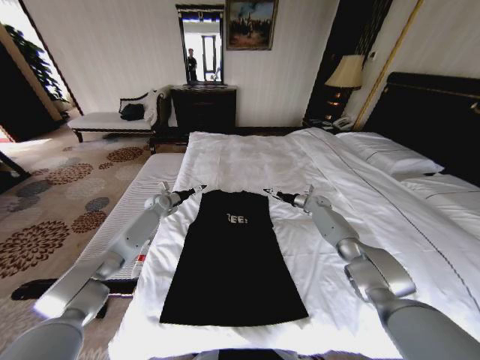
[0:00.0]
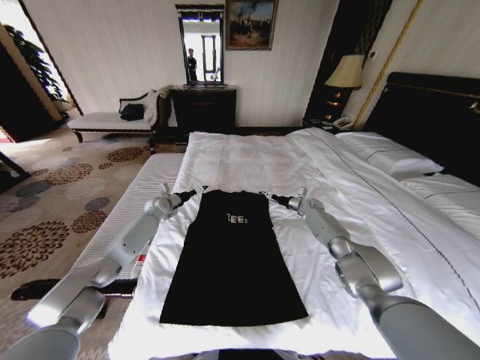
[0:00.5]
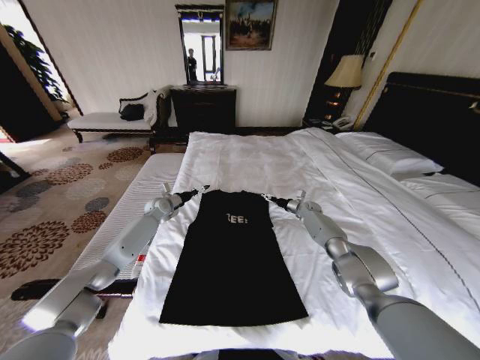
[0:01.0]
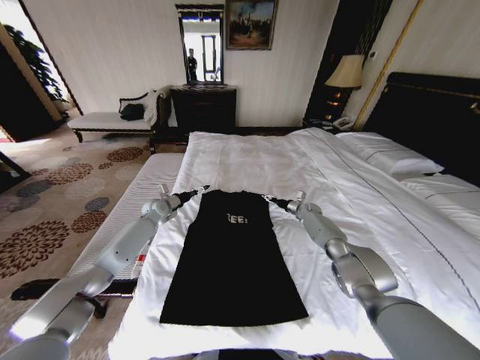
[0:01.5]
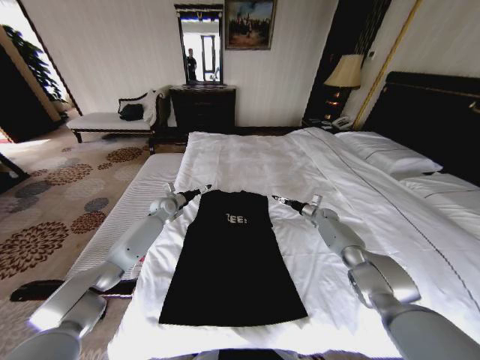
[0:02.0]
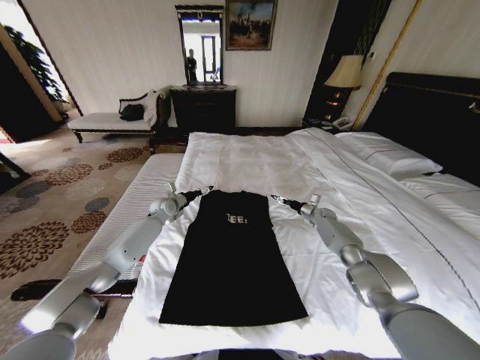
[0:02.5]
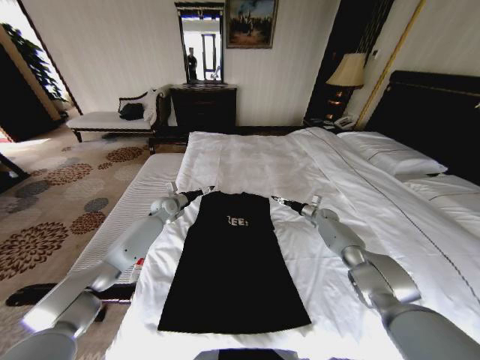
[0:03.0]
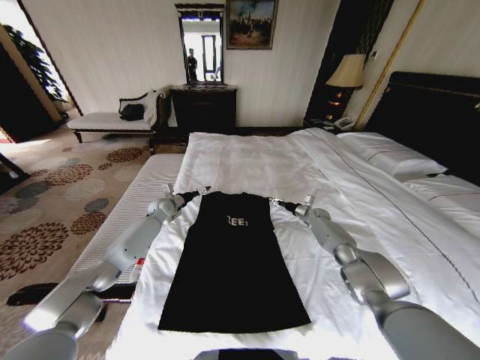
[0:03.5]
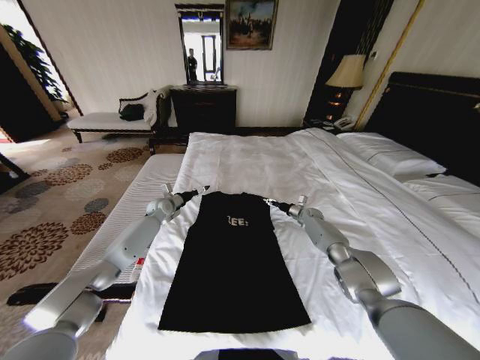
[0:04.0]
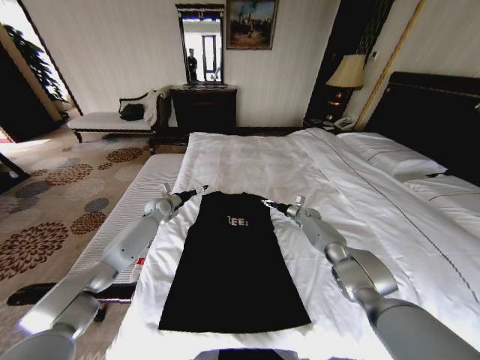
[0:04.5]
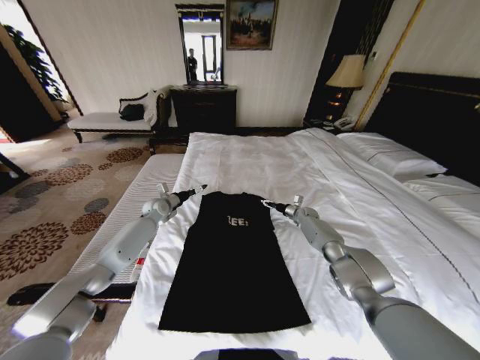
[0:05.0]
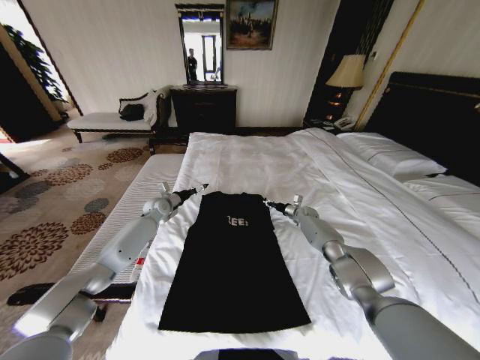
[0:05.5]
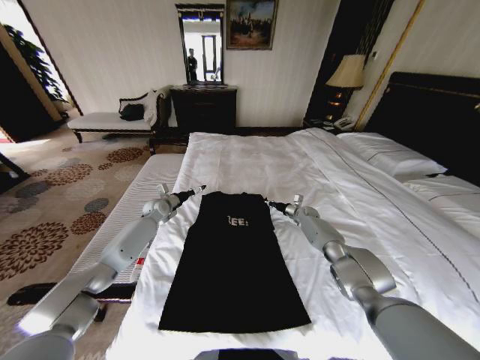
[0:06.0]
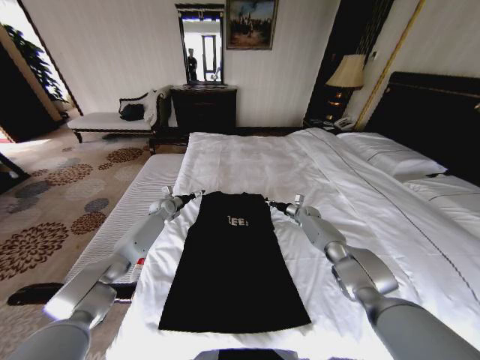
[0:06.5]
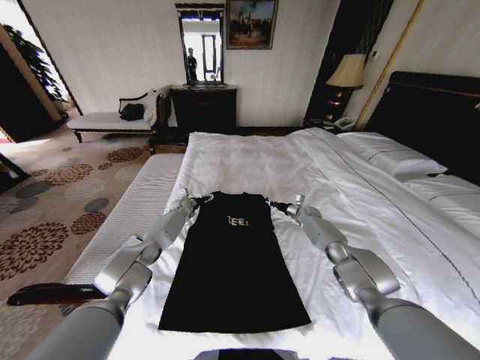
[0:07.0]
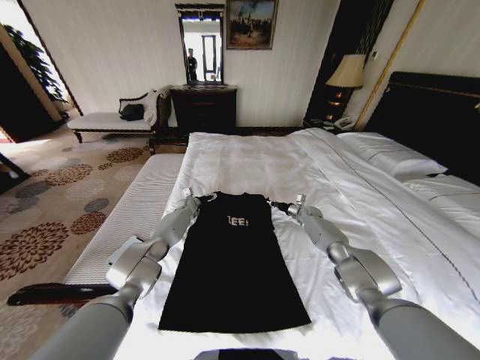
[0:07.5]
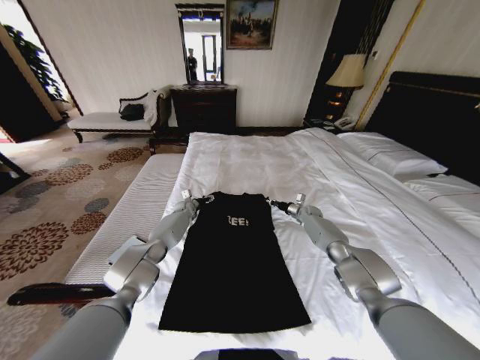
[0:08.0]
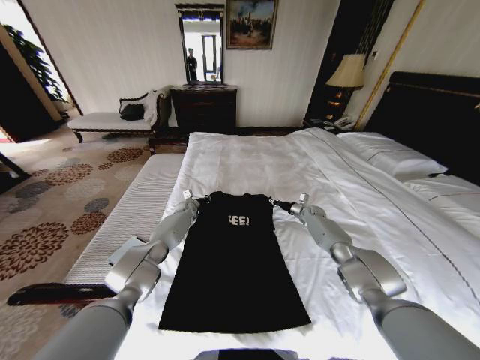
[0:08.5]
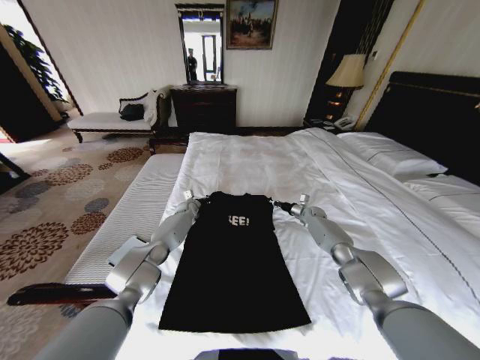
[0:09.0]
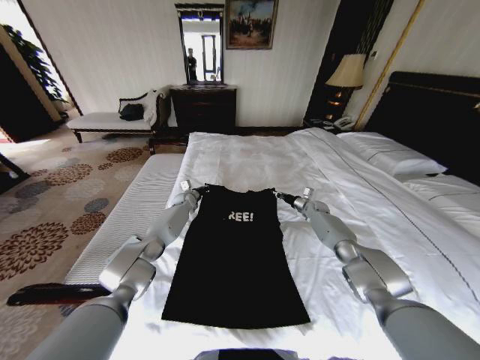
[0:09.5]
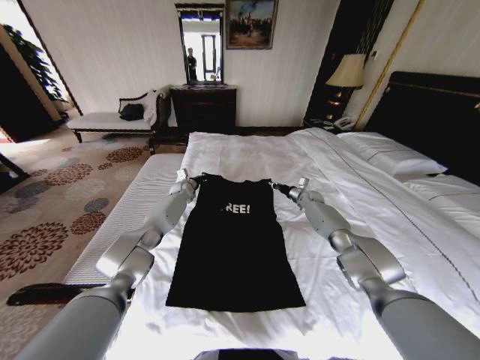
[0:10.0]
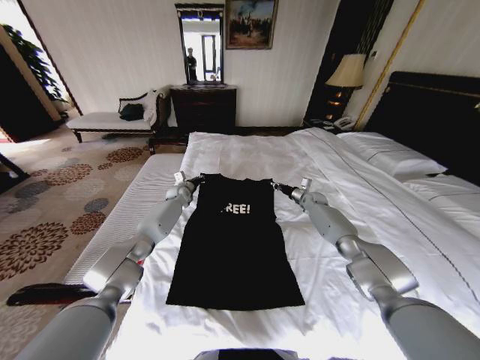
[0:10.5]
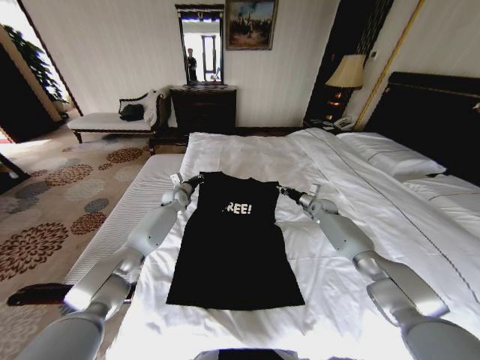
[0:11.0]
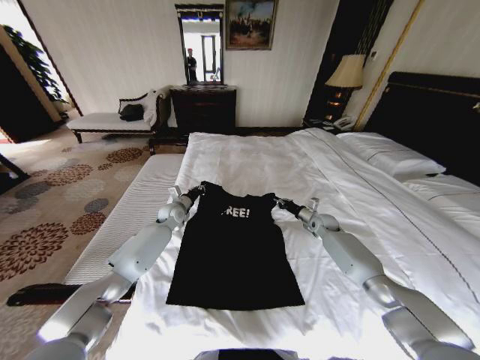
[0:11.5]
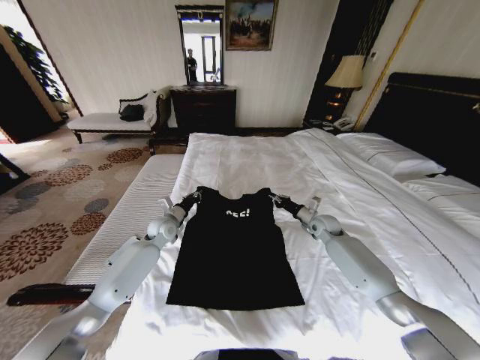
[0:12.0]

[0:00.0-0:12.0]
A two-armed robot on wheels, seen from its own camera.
Task of the whole recording: Fold the clothes on the bed.
0:00.0 to 0:02.0: The right gripper is displaced downward by about 5 cm.
0:02.0 to 0:04.0: The right gripper shifts approximately 5 cm to the left.
0:04.0 to 0:06.0: The right gripper closes its fingers.
0:06.0 to 0:08.0: The left gripper moves to the right, downward and forward, roughly 15 cm.
0:08.0 to 0:10.0: The grippers both shift upward by about 5 cm. The left gripper closes.
0:10.0 to 0:12.0: The two grippers go some 15 cm backward.

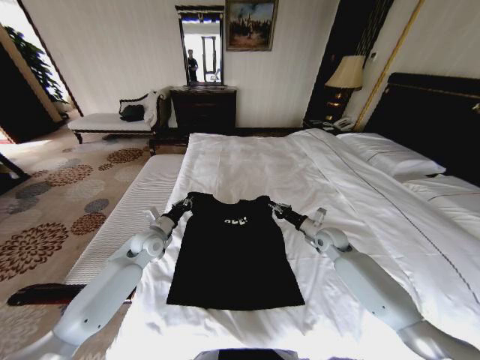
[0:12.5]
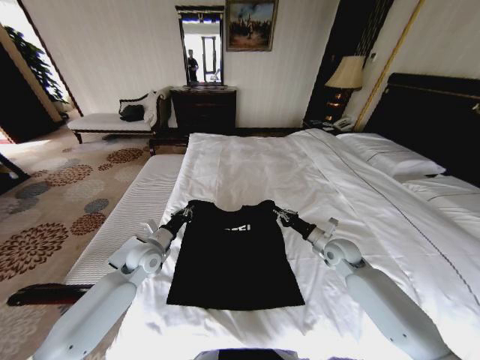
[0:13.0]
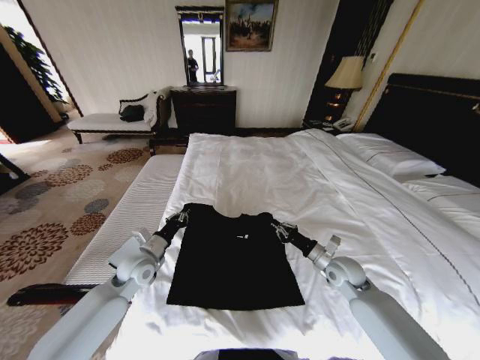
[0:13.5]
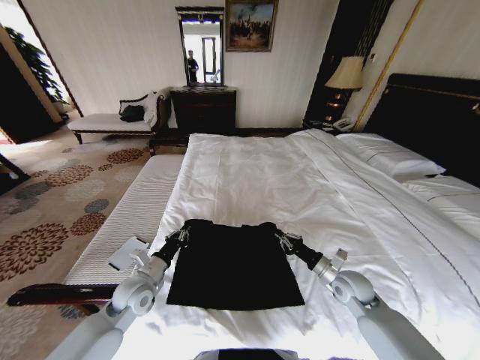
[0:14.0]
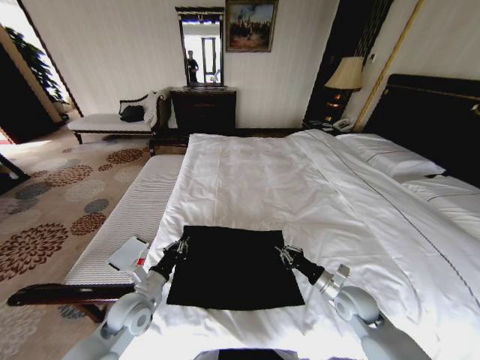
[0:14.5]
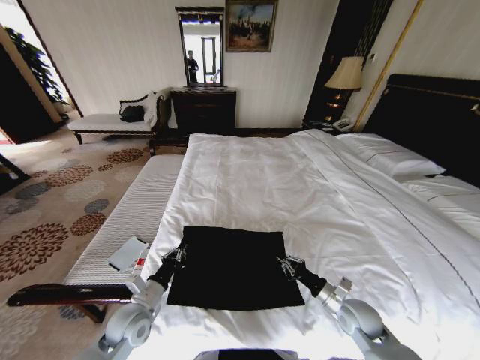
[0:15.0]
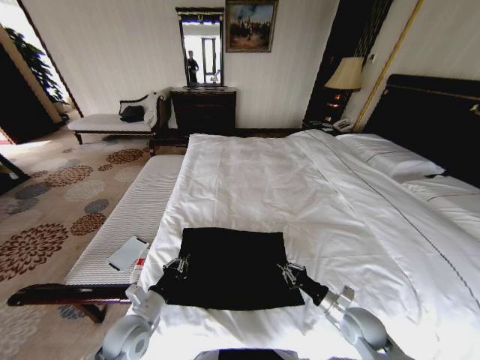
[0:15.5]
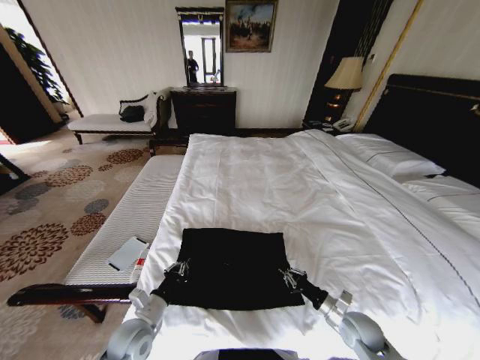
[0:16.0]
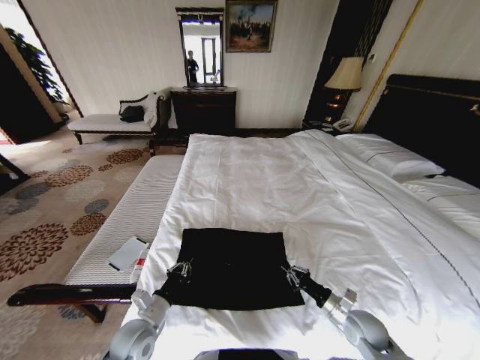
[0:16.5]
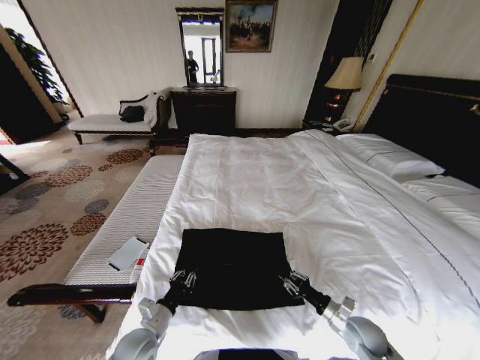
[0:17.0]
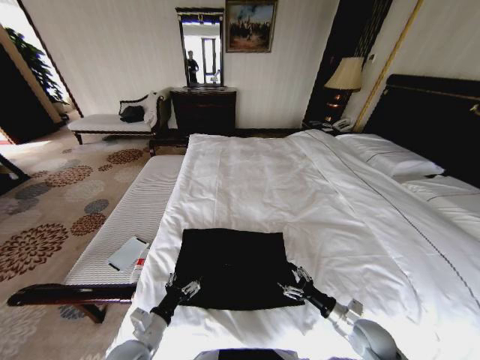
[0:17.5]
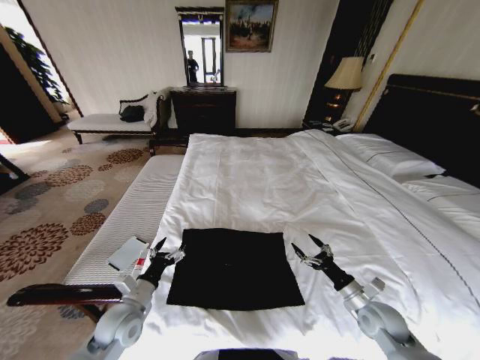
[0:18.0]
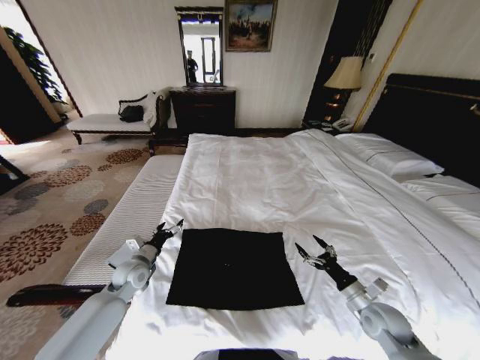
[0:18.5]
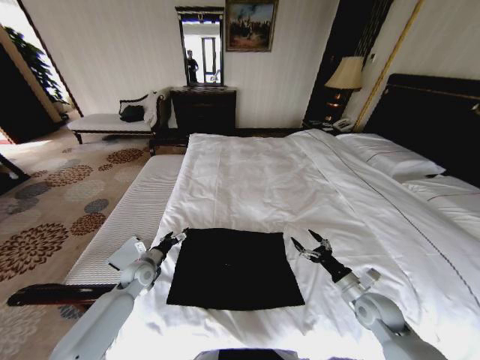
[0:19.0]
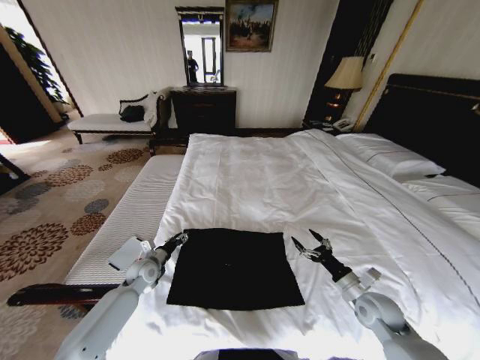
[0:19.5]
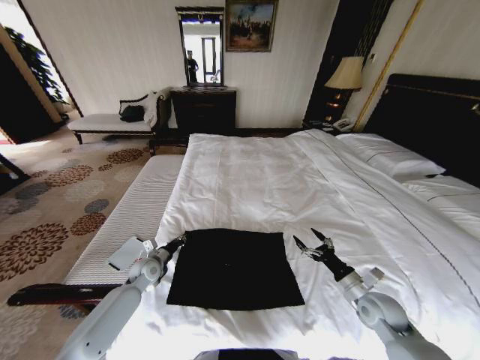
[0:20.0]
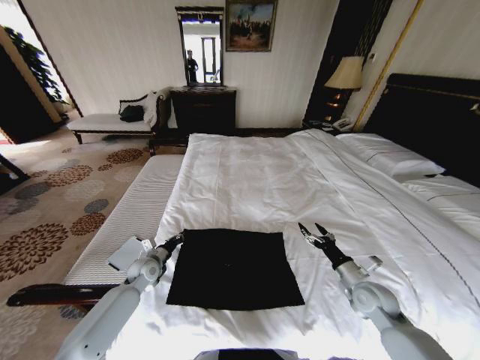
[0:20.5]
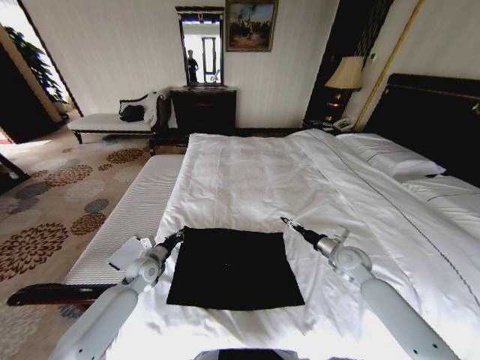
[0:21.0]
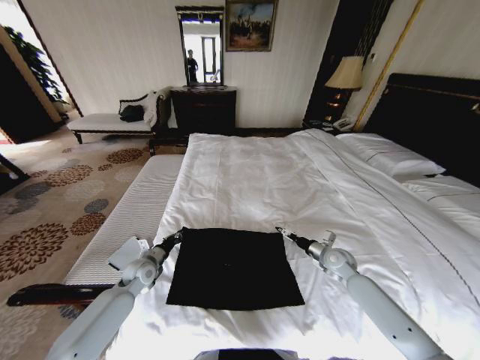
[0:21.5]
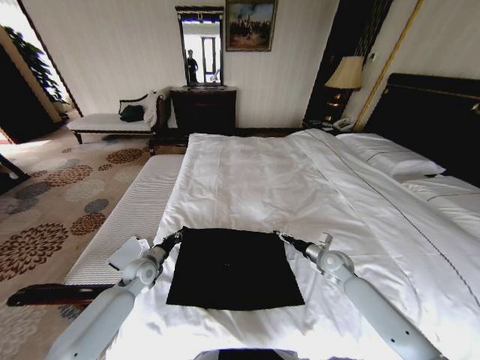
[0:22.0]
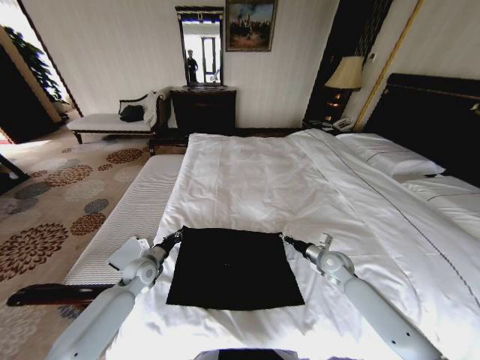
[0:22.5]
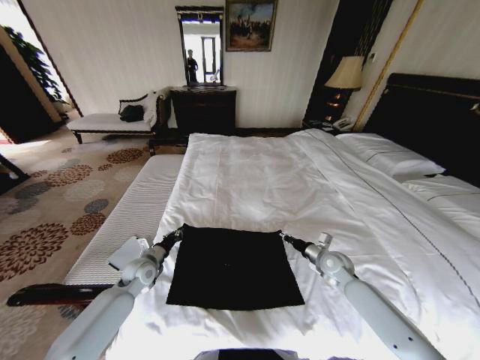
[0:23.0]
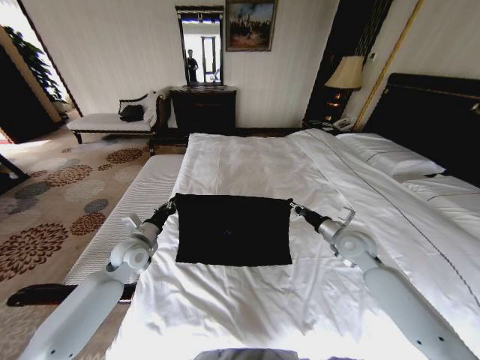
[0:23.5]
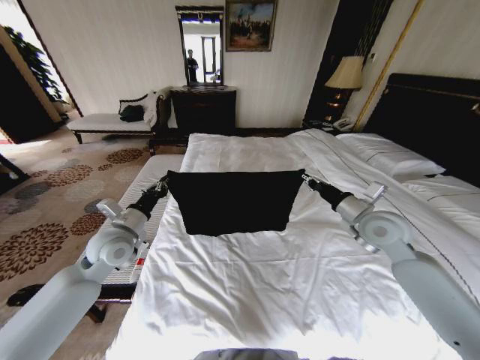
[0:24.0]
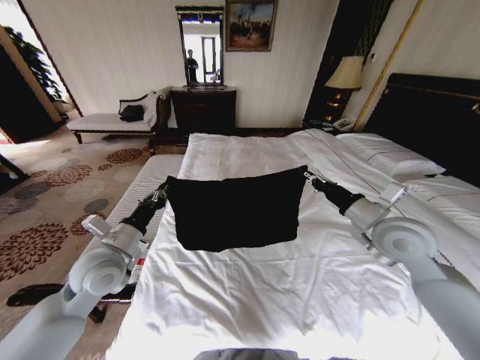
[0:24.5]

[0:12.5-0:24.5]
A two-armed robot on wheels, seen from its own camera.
Task of the whole recording: Fold the clothes on the bed.
0:12.5 to 0:14.5: Both grippers travel together backward, some 20 cm.
0:14.5 to 0:16.5: The right gripper moves downward, roughly 5 cm, while the left gripper travels backward by approximately 5 cm.
0:16.5 to 0:18.5: The left gripper shifts approximately 15 cm forward, and opens up. The right gripper changes place by approximately 5 cm, and opens its fingers.
0:18.5 to 0:20.5: The left gripper is displaced downward by about 5 cm, and closes its fingers, while the right gripper moves roughly 5 cm.
0:20.5 to 0:22.5: The right gripper moves forward, about 10 cm, and closes up.
0:22.5 to 0:24.5: Both grippers travel together upward, approximately 20 cm.

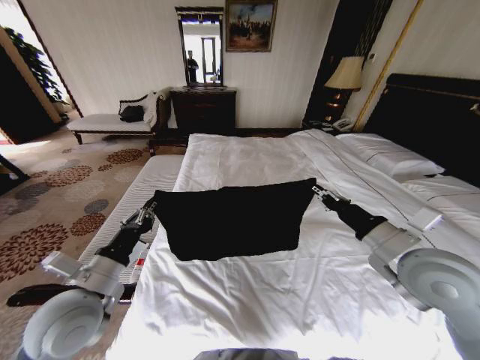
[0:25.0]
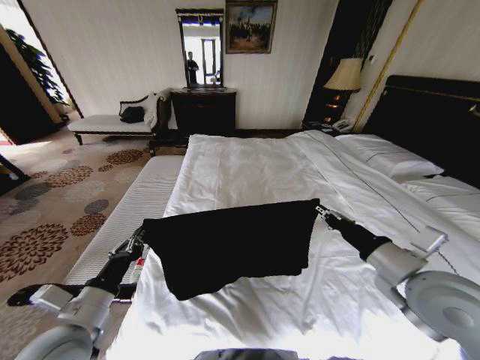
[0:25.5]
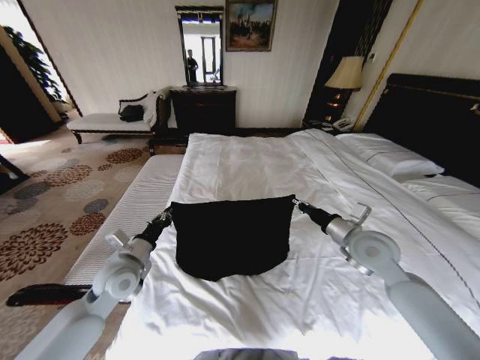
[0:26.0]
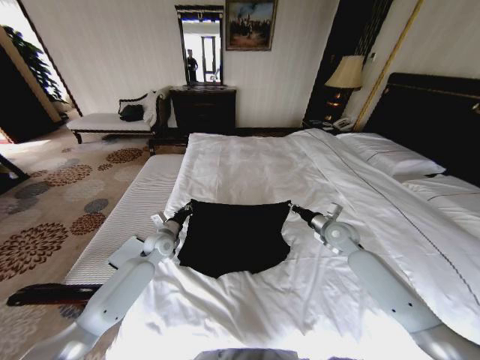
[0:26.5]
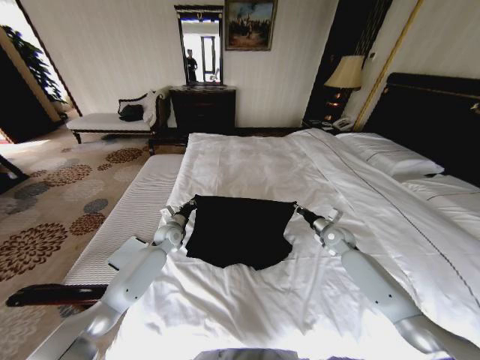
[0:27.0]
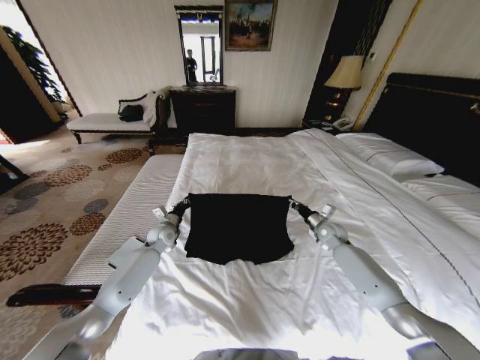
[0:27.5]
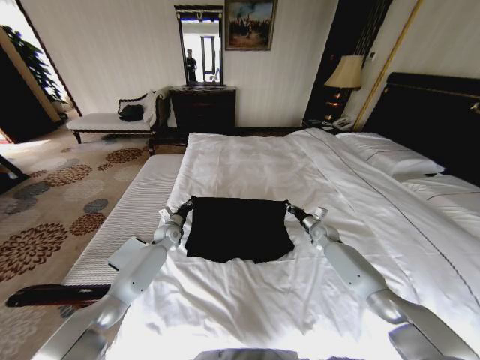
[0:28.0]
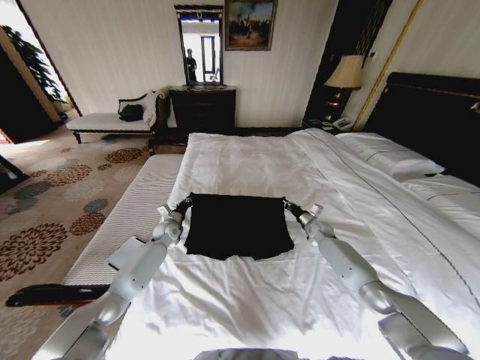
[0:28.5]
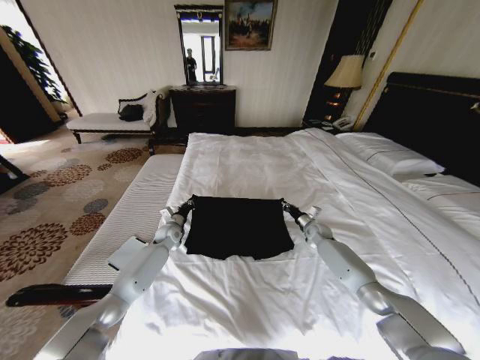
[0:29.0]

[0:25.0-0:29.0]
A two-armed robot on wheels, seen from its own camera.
Task of the whole recording: Fold the clothes on the bed.
0:25.0 to 0:27.0: Both grippers move forward and downward, some 35 cm.
0:27.0 to 0:29.0: The right gripper goes roughly 10 cm forward and downward.
